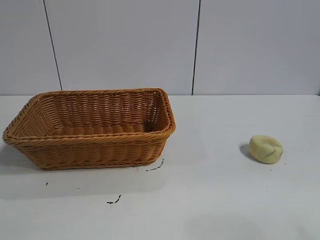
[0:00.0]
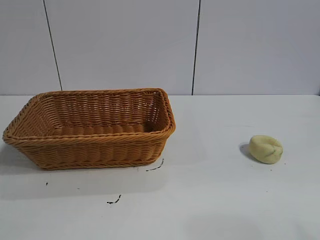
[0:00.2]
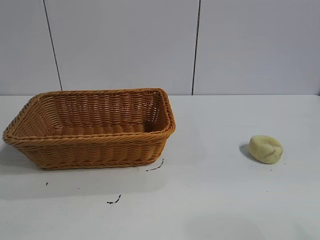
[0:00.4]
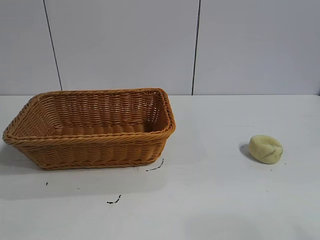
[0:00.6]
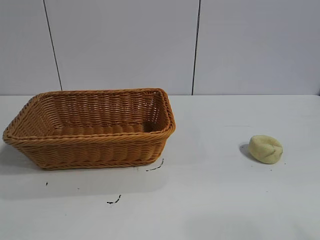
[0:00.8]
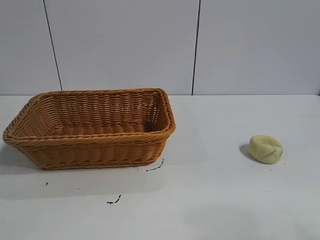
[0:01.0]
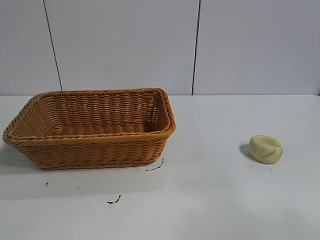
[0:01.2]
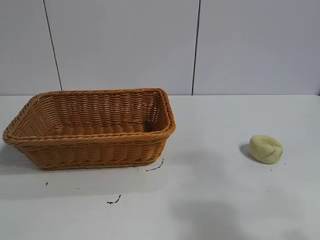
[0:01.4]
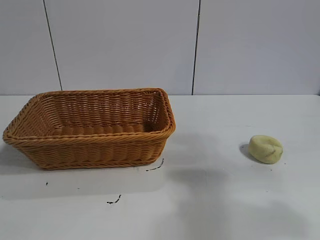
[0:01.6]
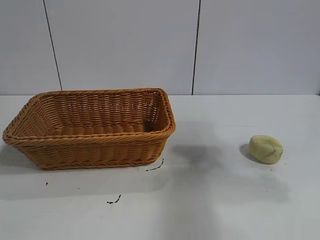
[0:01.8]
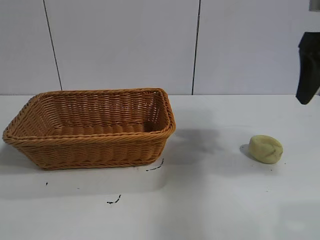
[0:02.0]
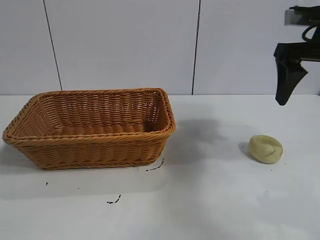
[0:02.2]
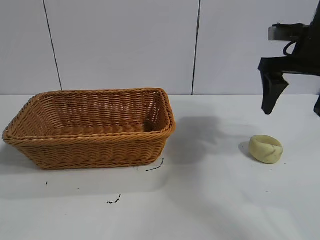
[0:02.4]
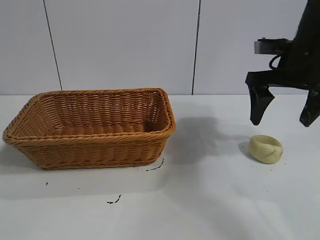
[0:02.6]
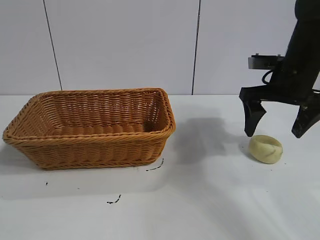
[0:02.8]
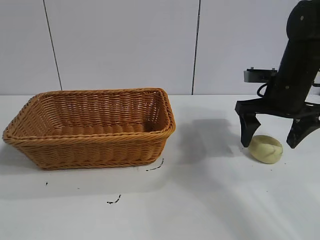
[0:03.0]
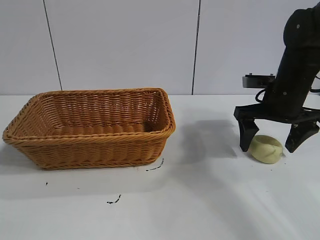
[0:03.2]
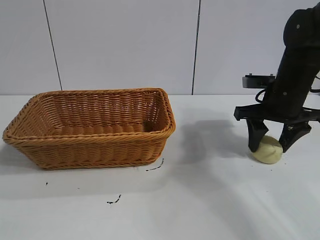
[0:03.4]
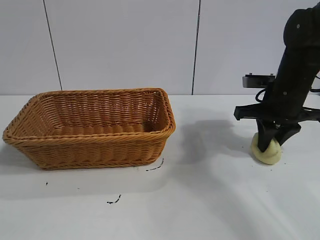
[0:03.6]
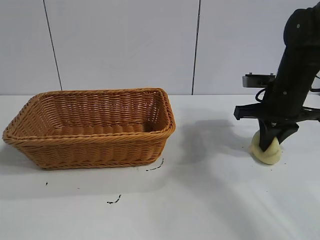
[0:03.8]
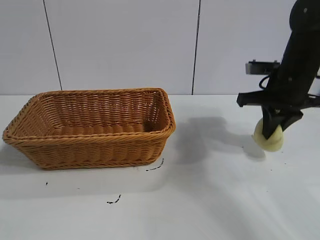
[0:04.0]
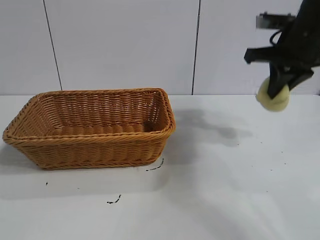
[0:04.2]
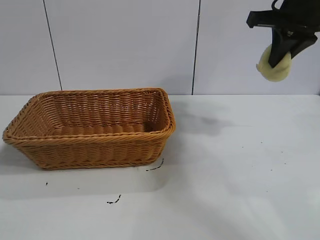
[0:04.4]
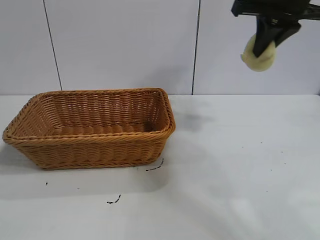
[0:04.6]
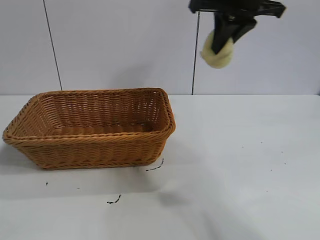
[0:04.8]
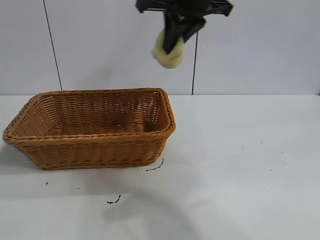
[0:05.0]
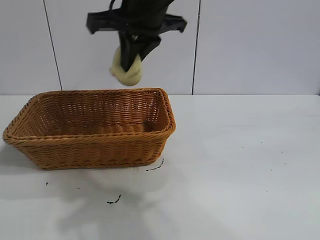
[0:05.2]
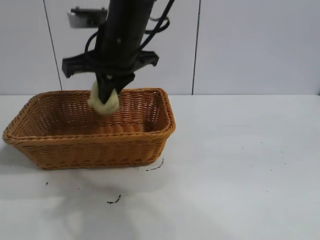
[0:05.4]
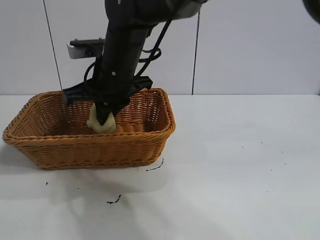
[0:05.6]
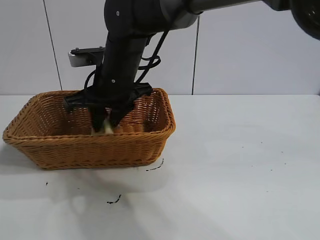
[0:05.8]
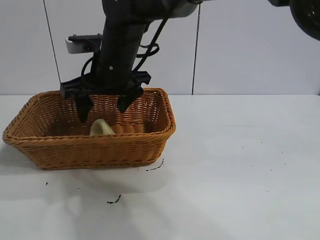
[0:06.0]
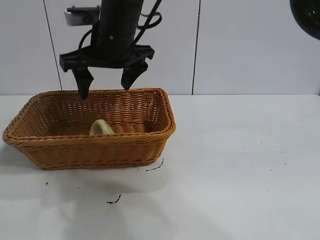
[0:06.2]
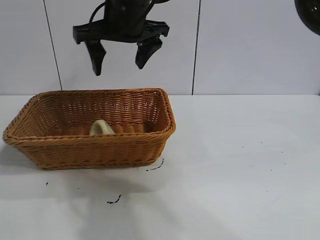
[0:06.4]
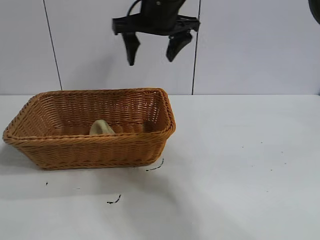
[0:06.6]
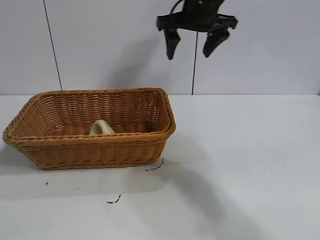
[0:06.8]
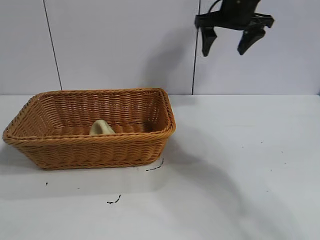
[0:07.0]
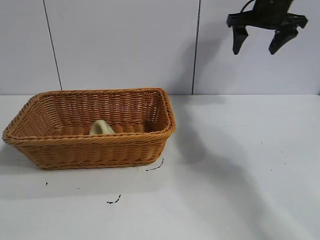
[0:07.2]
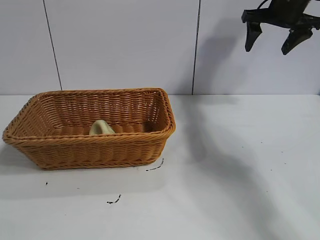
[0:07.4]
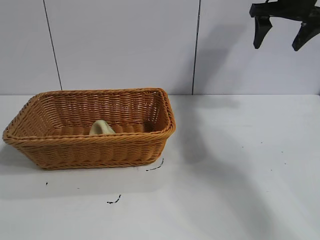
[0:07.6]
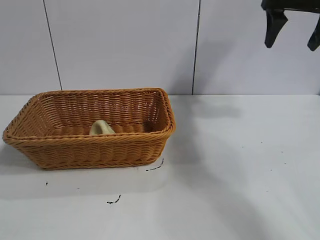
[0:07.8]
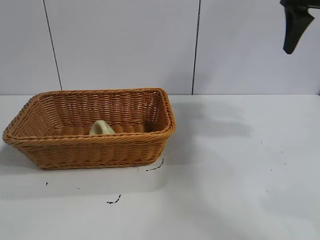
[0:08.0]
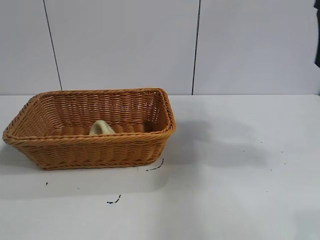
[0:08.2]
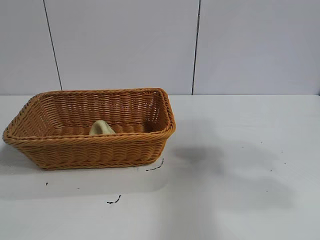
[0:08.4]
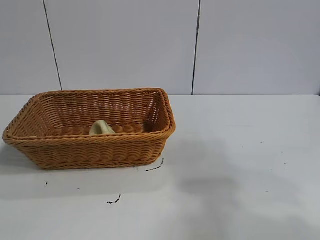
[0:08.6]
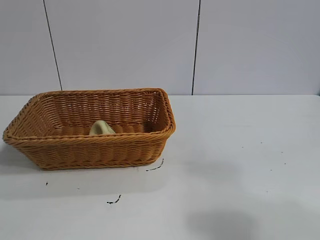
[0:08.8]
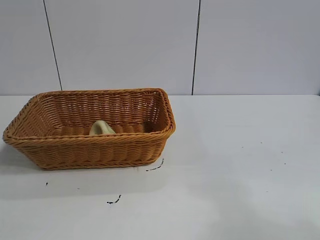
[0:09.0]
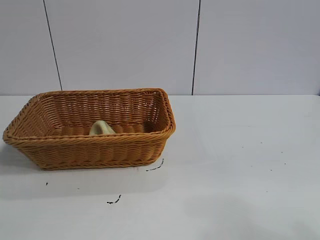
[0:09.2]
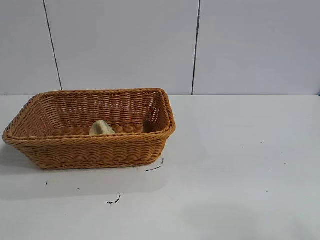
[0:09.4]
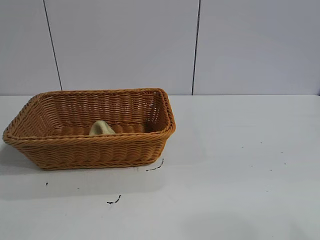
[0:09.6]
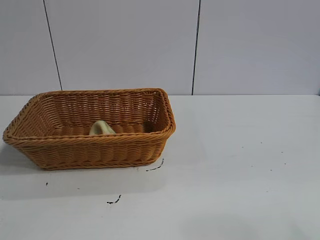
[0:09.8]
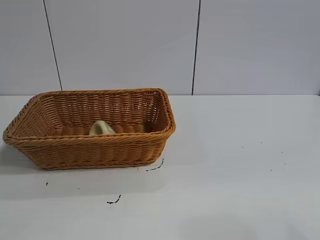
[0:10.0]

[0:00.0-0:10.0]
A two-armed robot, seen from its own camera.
Task of the whole recording: pick up the egg yolk pastry and put it into the basket.
Step, 0:01.0 to 0:03.6: Grasp egg yolk pastry with right gripper.
Step, 0:03.8 to 0:05.8: Place the egg yolk pastry in the basket with right gripper.
